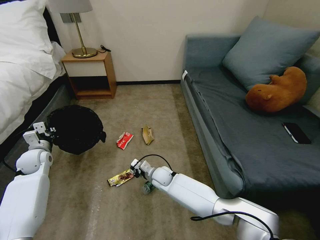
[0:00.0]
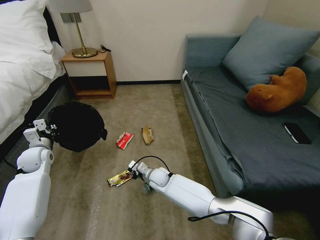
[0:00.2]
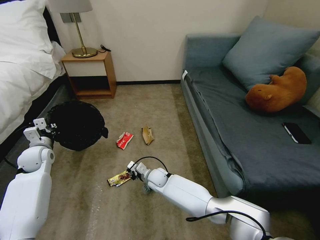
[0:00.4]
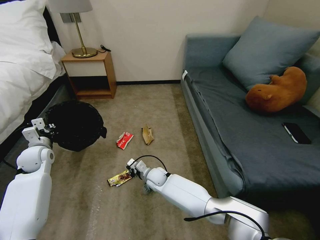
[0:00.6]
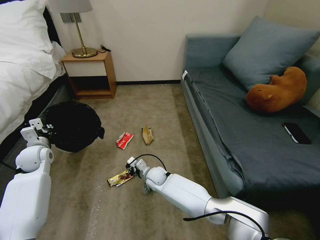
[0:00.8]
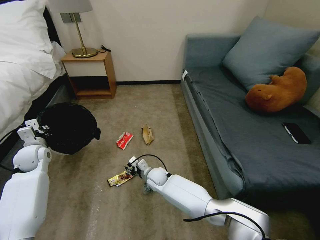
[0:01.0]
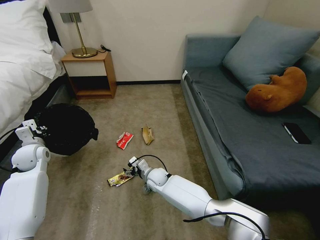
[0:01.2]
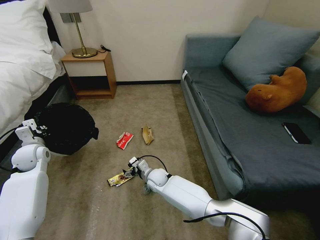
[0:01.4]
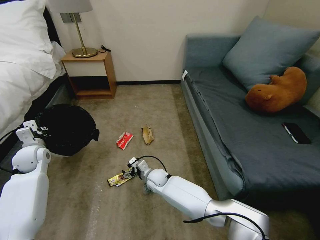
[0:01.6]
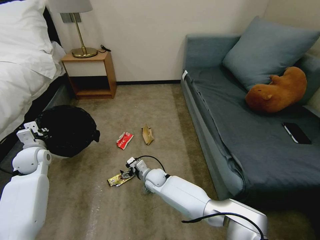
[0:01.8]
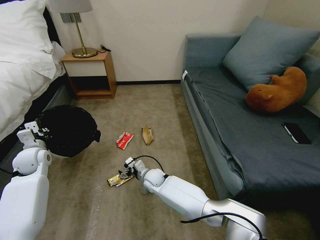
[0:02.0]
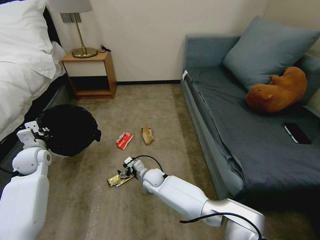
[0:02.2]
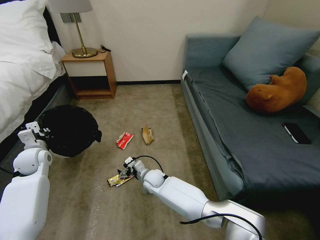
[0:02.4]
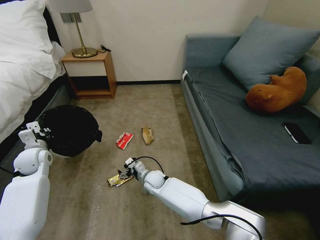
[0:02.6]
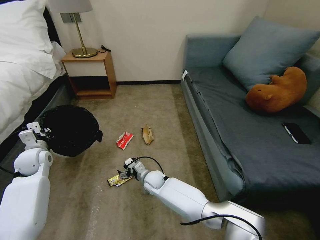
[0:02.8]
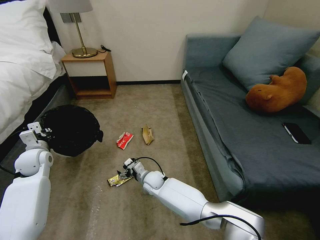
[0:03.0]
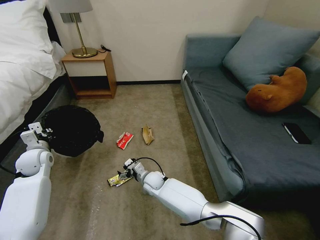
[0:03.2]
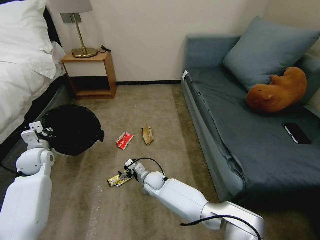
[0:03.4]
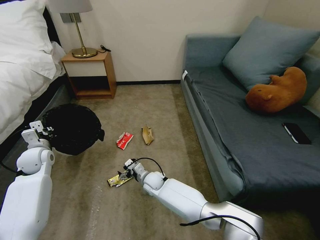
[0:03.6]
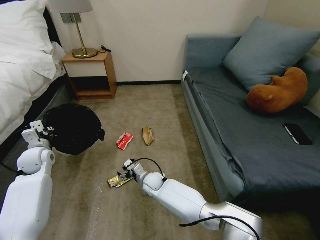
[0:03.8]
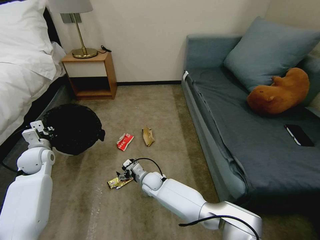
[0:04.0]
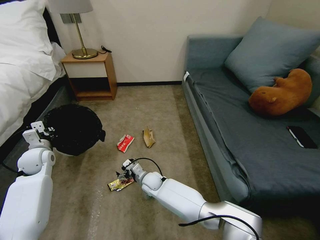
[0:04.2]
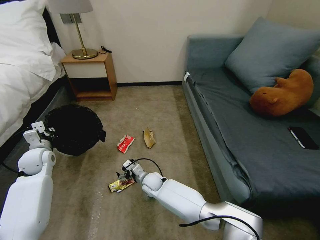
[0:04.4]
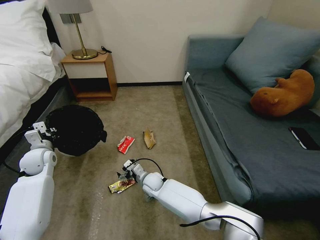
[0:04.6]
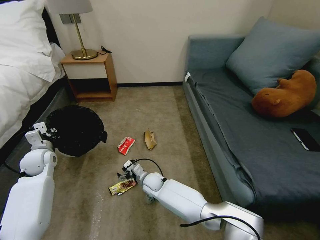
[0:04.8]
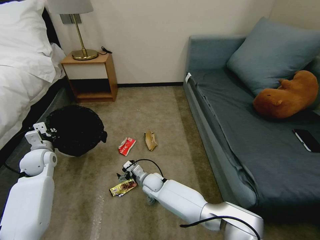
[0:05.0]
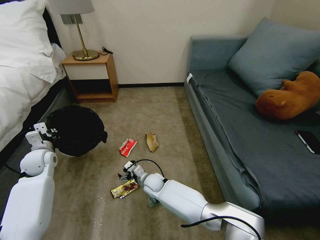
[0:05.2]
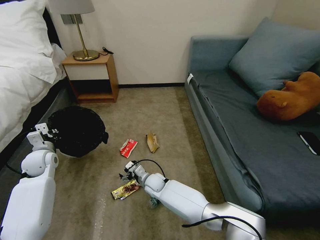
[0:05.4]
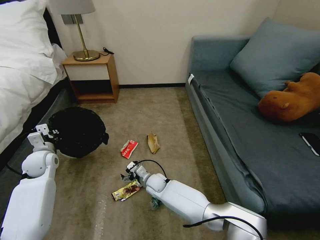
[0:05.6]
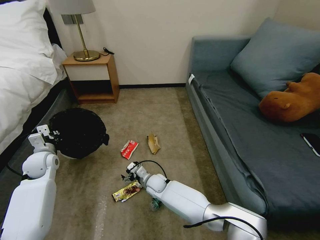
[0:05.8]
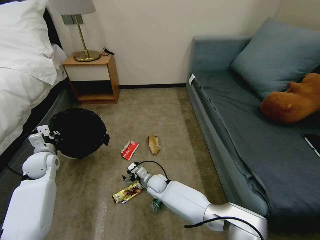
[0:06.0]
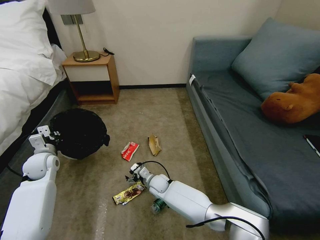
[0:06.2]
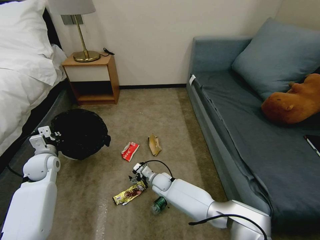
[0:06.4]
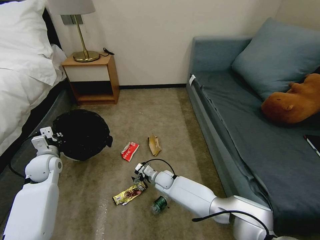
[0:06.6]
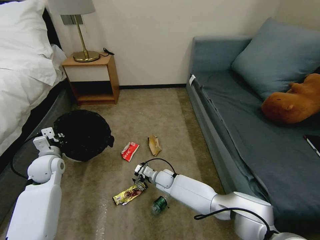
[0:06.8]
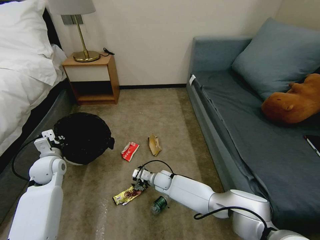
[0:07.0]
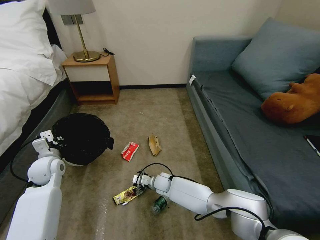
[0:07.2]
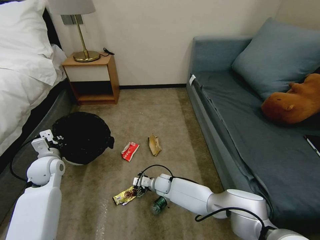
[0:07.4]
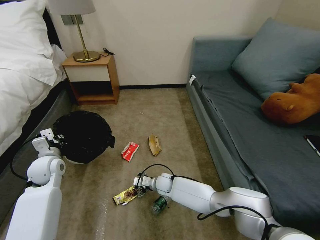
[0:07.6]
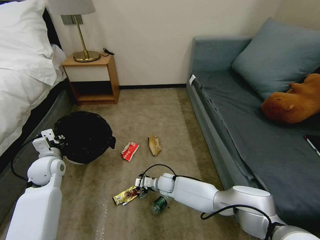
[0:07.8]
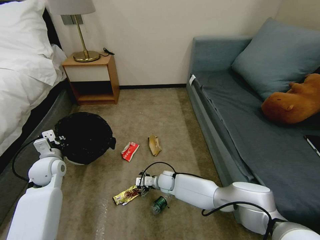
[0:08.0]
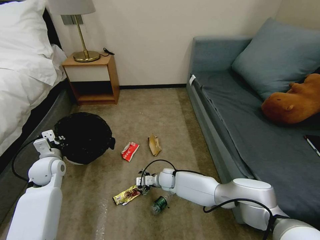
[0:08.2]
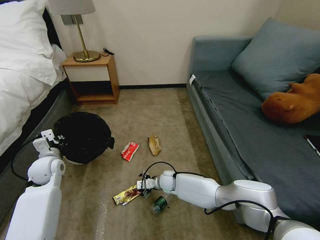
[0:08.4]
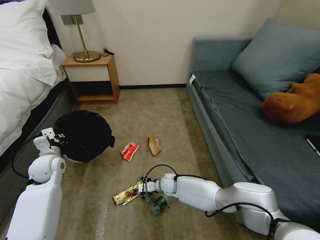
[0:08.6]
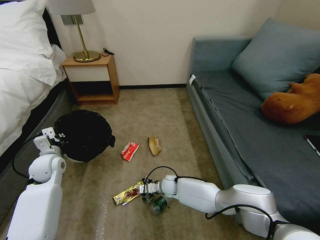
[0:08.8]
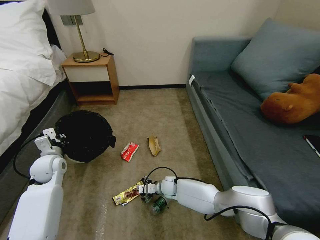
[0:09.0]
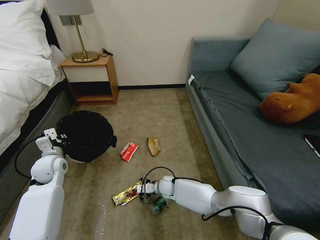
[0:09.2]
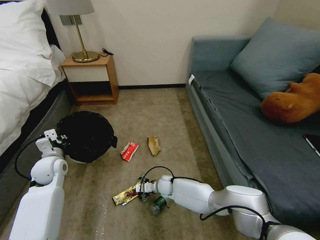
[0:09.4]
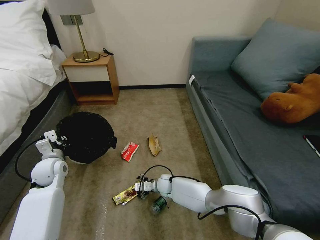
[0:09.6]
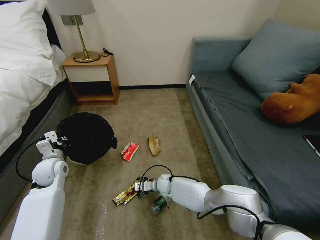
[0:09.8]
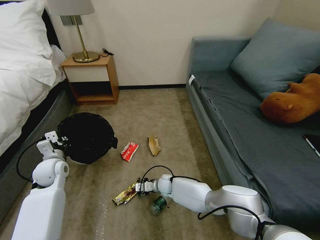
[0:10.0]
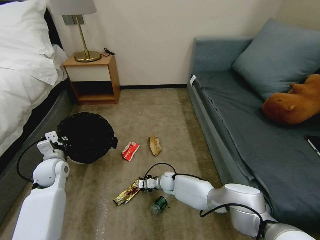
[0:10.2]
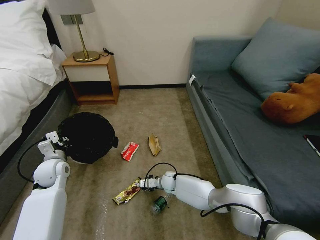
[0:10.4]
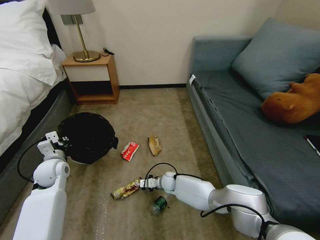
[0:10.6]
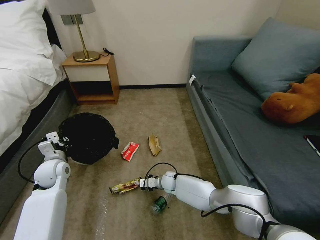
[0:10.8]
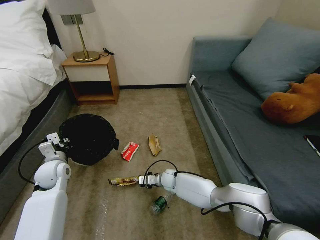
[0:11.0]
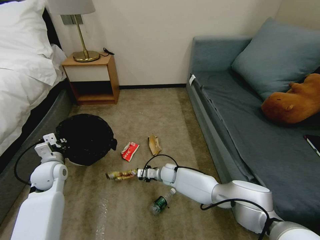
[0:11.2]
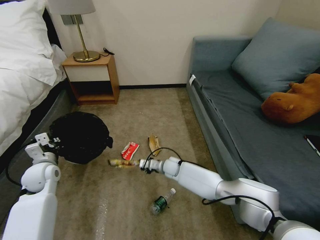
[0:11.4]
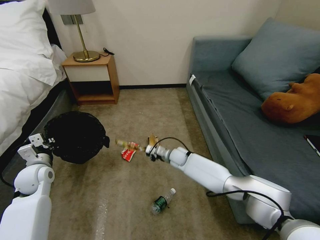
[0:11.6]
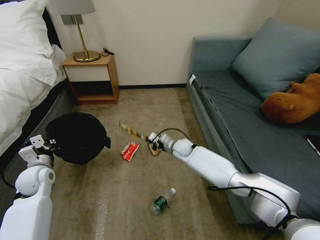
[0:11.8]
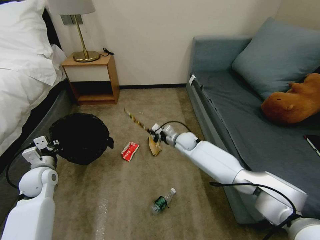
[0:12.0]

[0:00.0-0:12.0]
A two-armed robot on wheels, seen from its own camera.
Task of the whole recording: Pick up the trash bin, then pick up the garbage on the floor and place it into the trash bin.
0:00.0 to 0:01.6: The right gripper opens.
0:01.6 to 0:03.0: The grippers move only a little.
0:03.0 to 0:04.4: Both grippers stay put.
0:06.0 to 0:07.6: The left gripper changes place by approximately 5 cm.
0:07.6 to 0:09.0: The grippers move only a little.
0:09.0 to 0:10.4: The right gripper closes up.
0:10.4 to 0:12.0: The right gripper goes approximately 20 cm upward and forward.

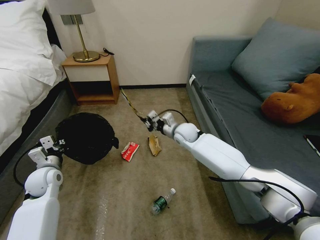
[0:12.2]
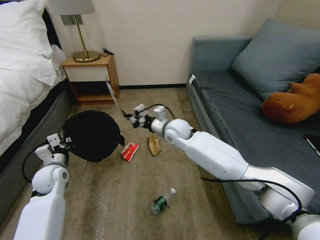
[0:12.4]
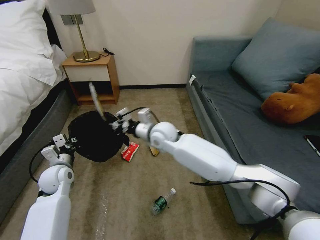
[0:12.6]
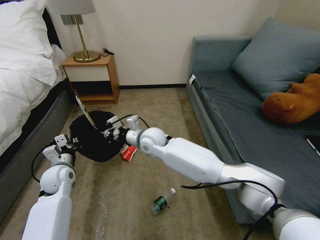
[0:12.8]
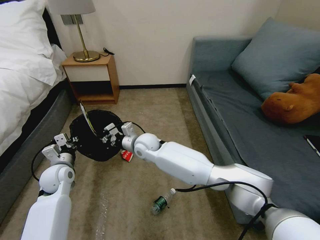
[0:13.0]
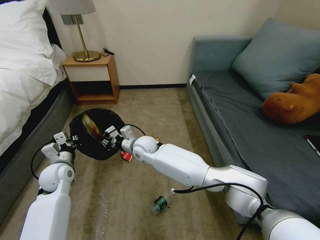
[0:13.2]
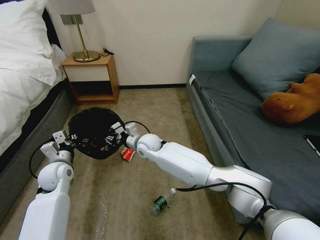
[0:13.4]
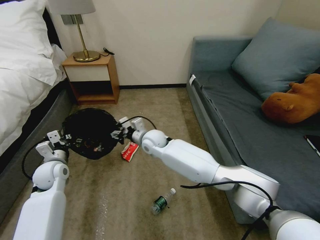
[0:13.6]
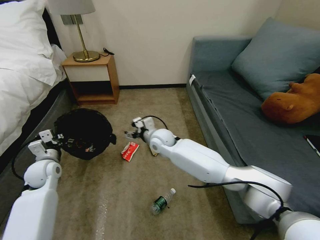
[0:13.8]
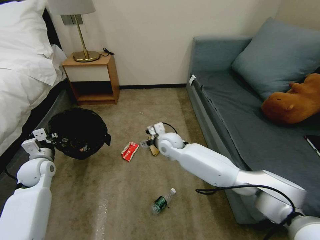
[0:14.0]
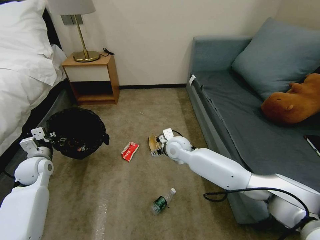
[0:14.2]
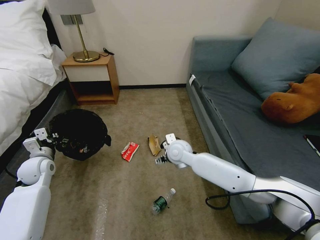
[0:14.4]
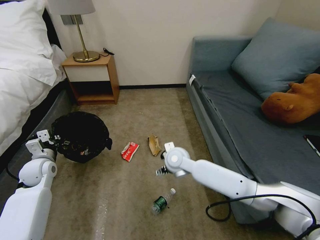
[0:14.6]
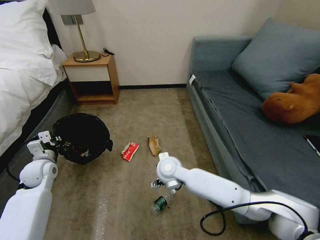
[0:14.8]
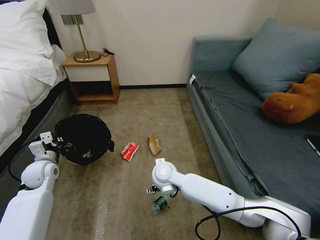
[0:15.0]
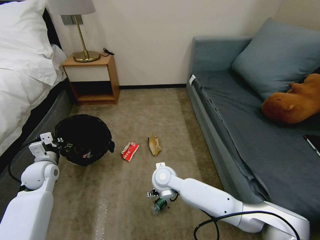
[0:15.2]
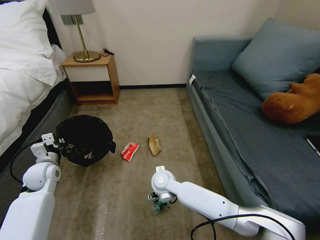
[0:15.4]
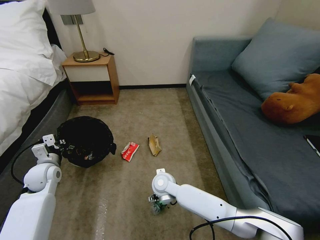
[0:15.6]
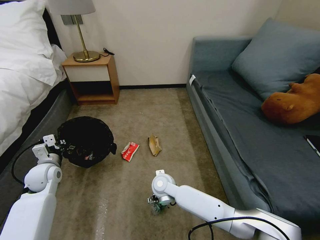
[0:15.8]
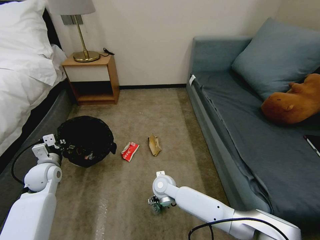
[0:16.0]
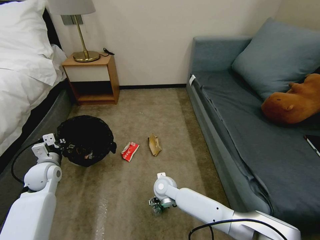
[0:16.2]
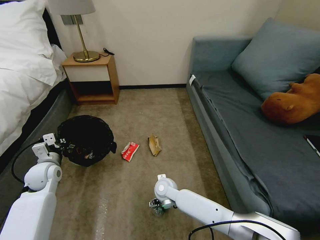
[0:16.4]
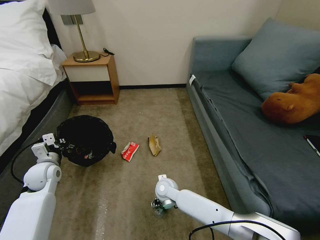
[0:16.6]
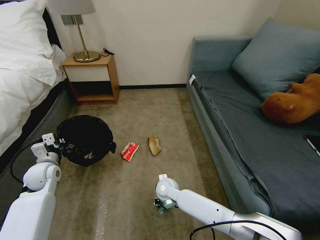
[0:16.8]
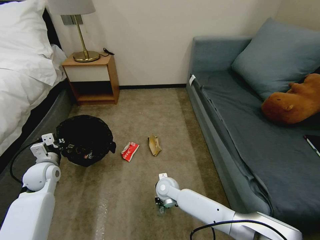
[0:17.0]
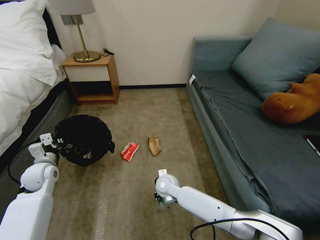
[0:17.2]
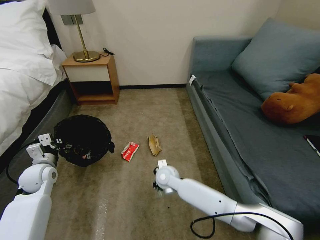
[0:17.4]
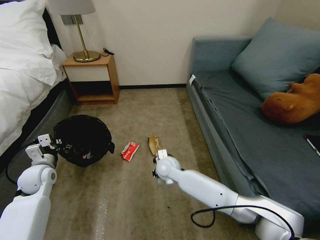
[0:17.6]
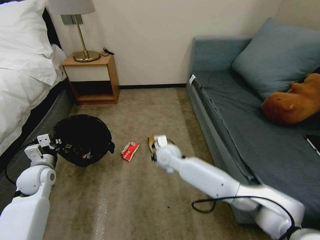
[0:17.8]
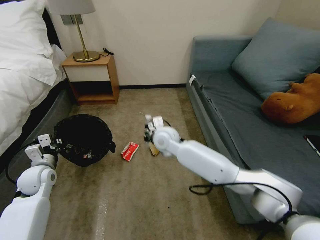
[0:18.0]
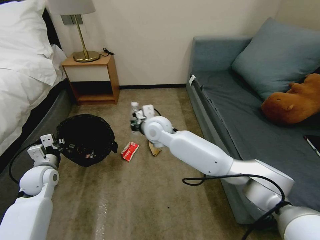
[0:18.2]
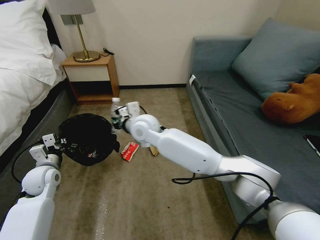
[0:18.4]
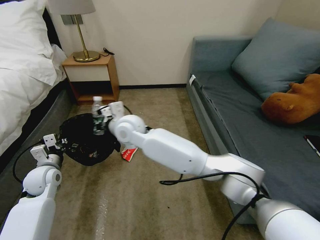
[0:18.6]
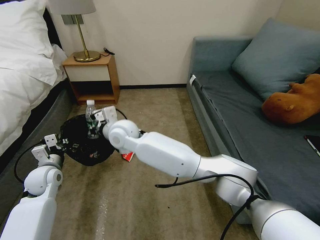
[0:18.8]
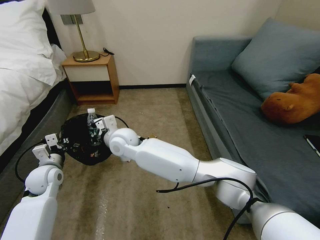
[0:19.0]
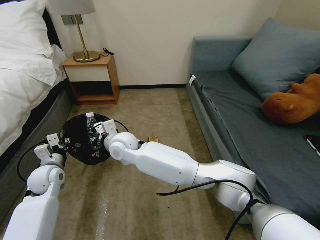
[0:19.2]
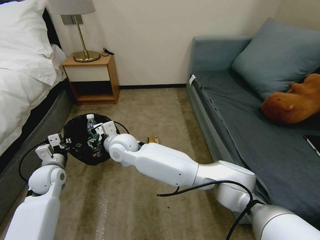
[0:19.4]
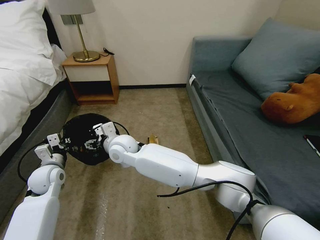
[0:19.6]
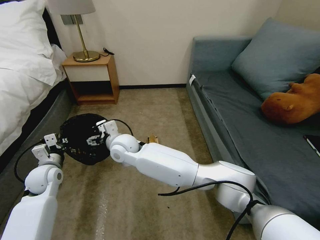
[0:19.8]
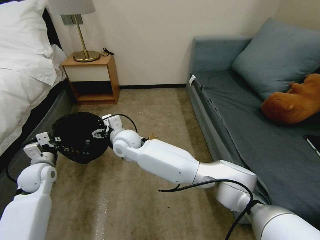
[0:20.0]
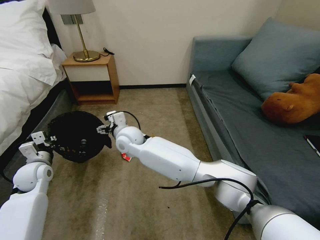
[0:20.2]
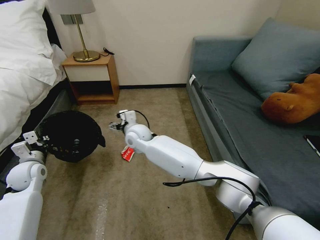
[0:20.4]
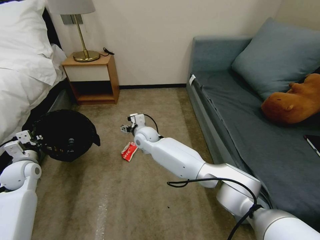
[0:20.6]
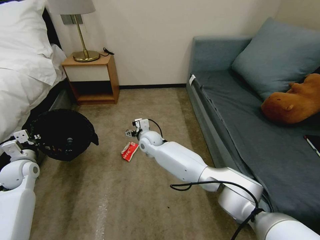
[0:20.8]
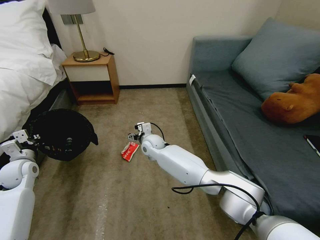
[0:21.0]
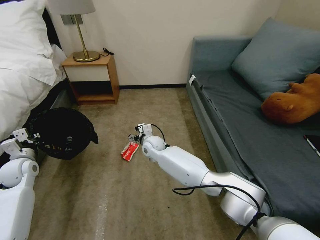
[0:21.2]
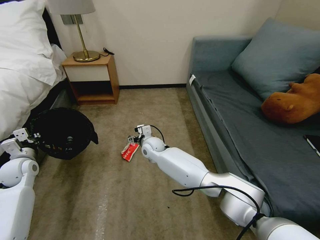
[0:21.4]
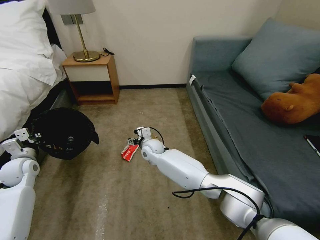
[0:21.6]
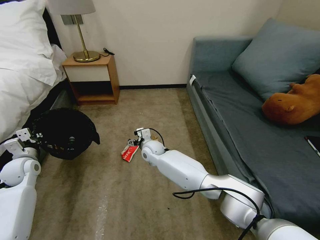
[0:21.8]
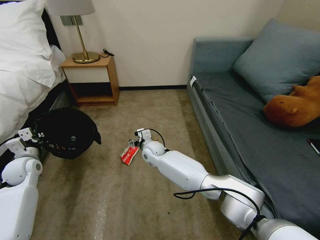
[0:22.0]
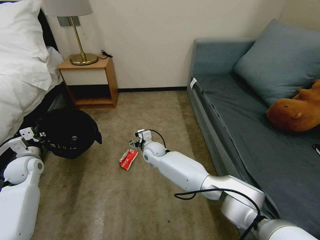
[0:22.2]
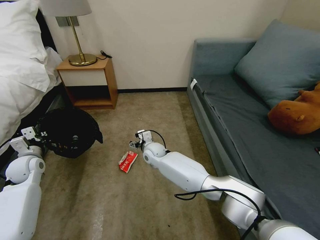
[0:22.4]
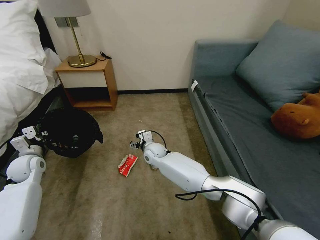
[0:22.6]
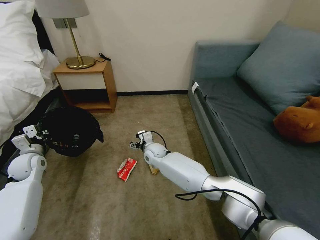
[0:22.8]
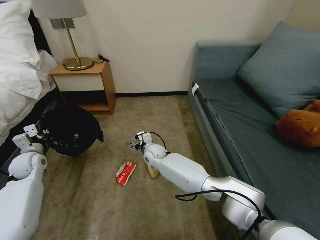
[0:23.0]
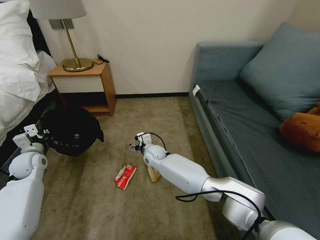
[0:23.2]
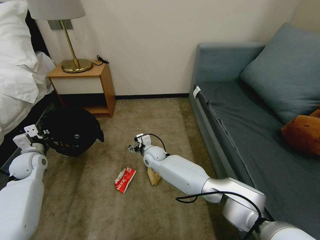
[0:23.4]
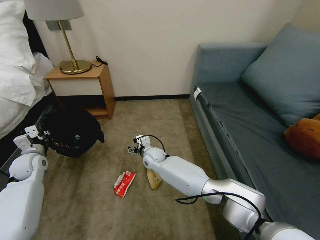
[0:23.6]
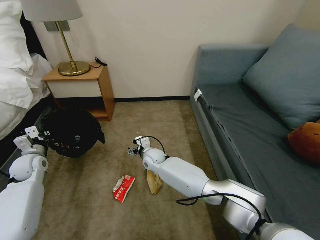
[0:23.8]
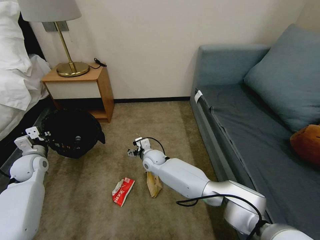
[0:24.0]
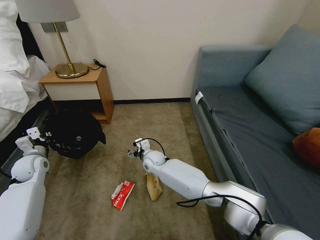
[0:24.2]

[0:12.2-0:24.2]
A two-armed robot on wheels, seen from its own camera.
Task of the whole recording: Pick up the trash bin, then pick up the garbage on the floor and place it into the trash bin.
0:12.2 to 0:13.8: The right gripper moves to the left, about 10 cm, and opens its fingers.
0:13.8 to 0:15.2: The right gripper travels backward and downward by some 15 cm.
0:15.2 to 0:16.6: The right gripper is displaced downward by some 10 cm.
0:16.6 to 0:18.2: The right gripper shifts about 25 cm upward and forward, and closes its fingers.
0:18.2 to 0:19.8: The right gripper shifts some 10 cm to the left, and opens its fingers.
0:19.8 to 0:21.2: The left gripper heads to the left, covering some 10 cm. Meanwhile the right gripper heads downward, to the right and forward, covering about 15 cm.
